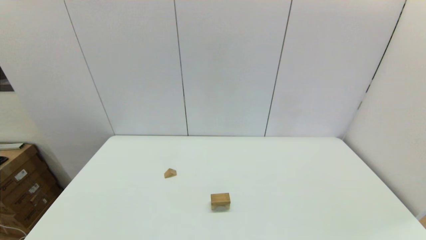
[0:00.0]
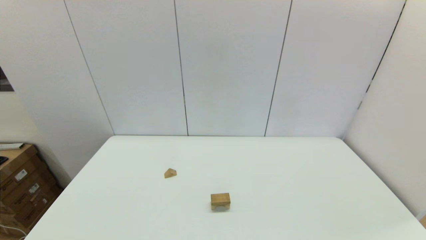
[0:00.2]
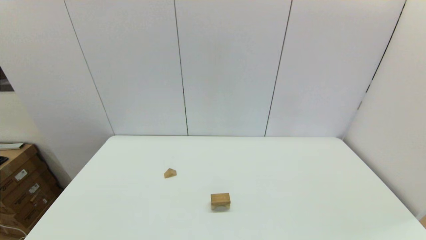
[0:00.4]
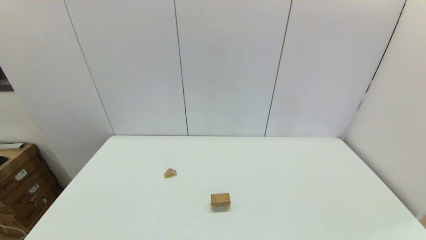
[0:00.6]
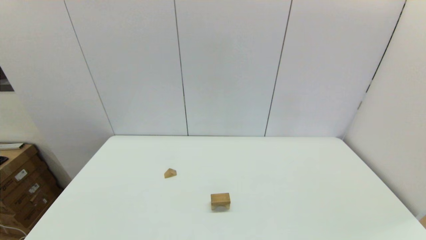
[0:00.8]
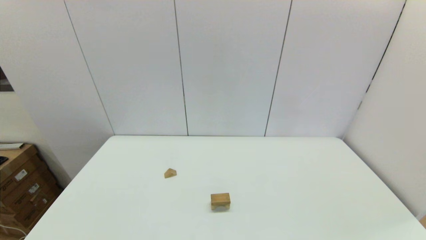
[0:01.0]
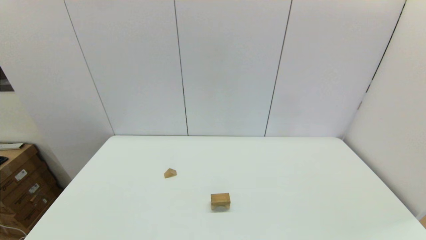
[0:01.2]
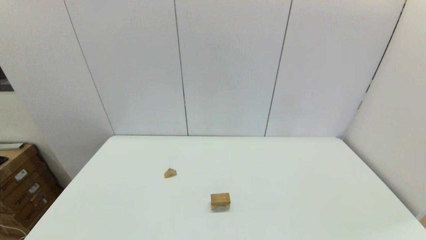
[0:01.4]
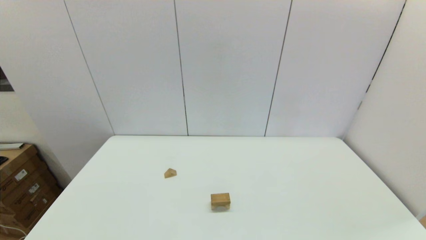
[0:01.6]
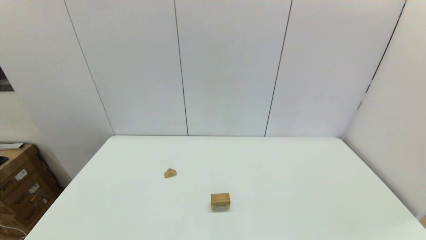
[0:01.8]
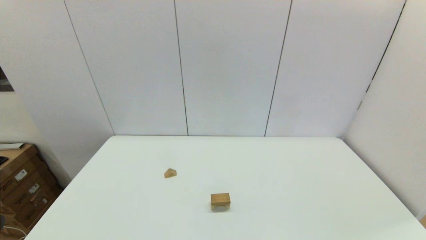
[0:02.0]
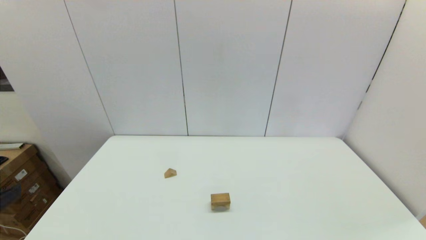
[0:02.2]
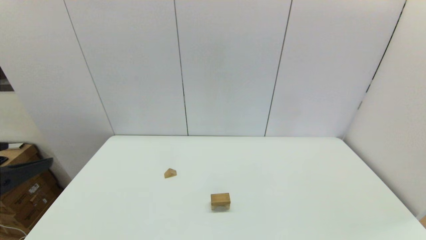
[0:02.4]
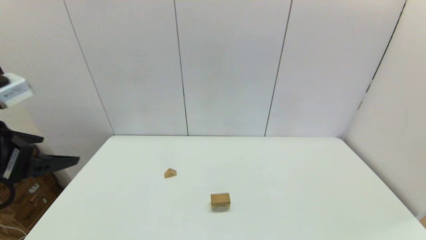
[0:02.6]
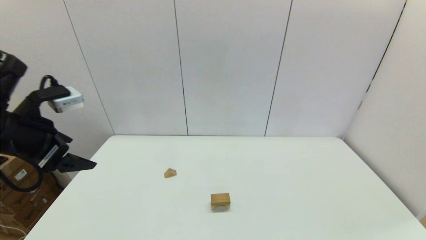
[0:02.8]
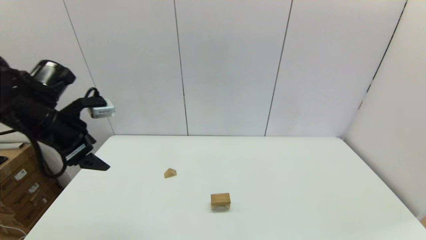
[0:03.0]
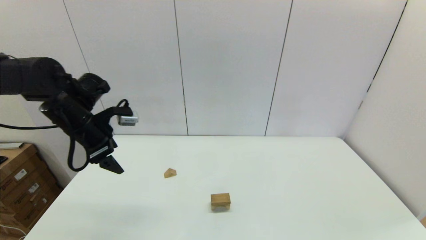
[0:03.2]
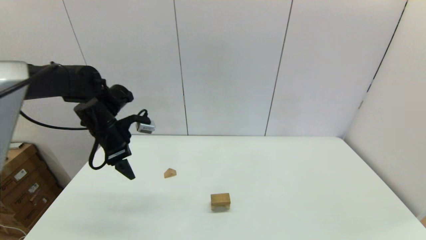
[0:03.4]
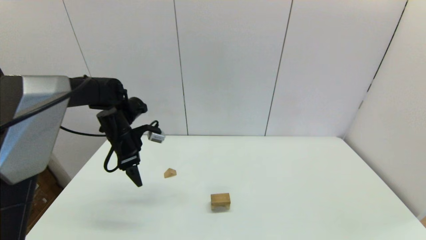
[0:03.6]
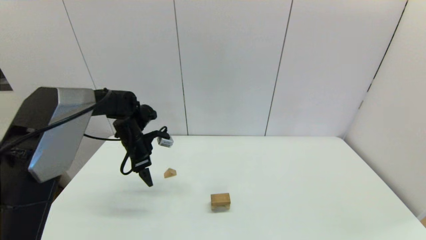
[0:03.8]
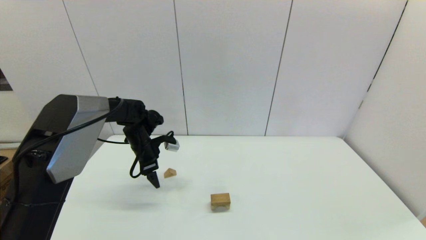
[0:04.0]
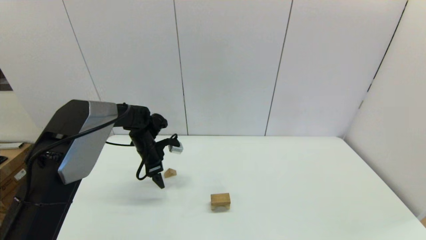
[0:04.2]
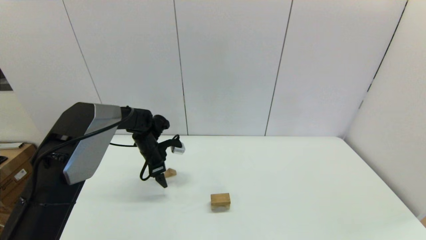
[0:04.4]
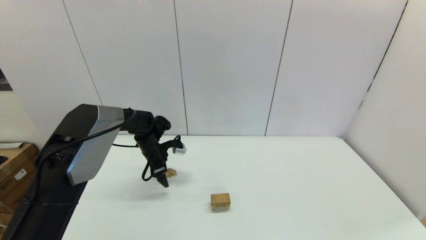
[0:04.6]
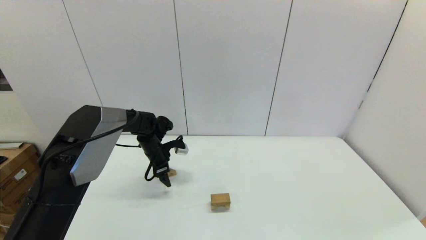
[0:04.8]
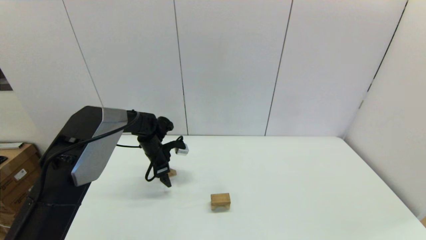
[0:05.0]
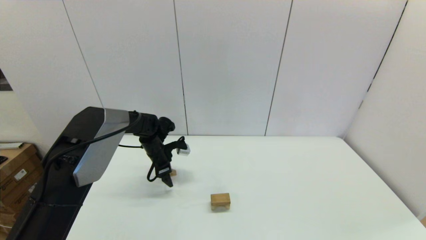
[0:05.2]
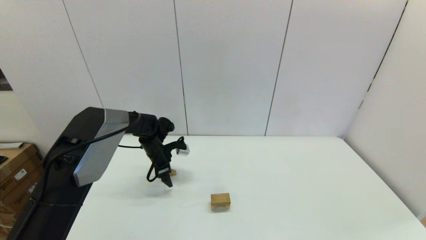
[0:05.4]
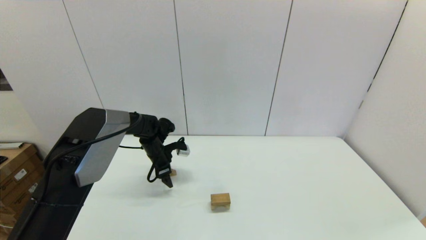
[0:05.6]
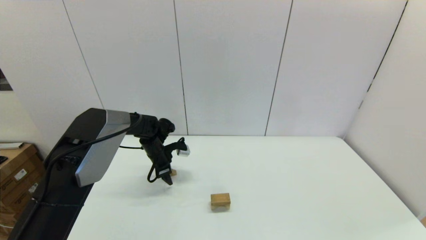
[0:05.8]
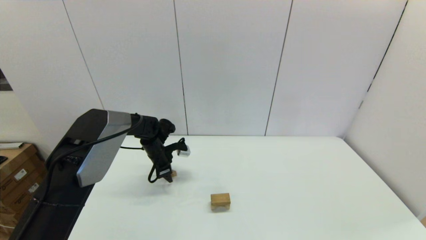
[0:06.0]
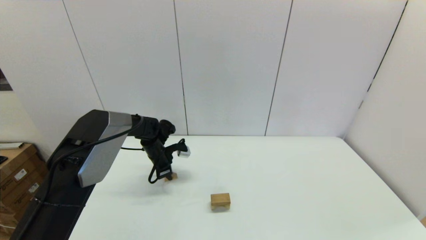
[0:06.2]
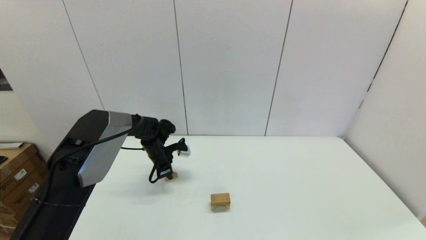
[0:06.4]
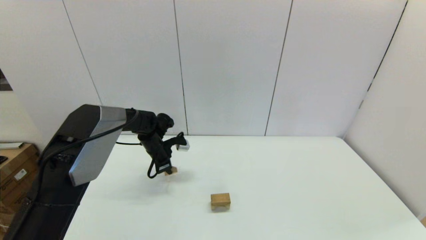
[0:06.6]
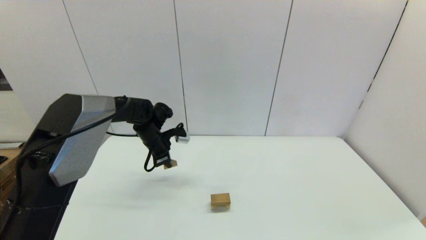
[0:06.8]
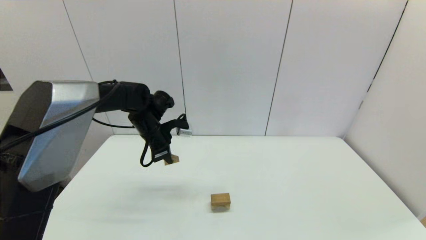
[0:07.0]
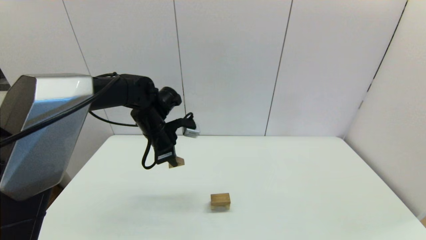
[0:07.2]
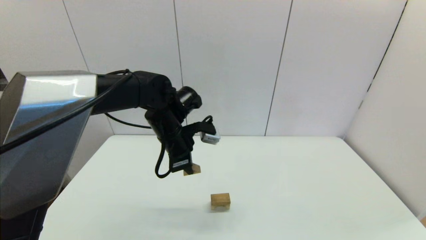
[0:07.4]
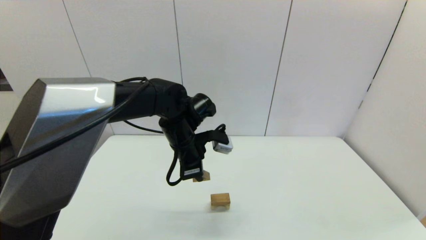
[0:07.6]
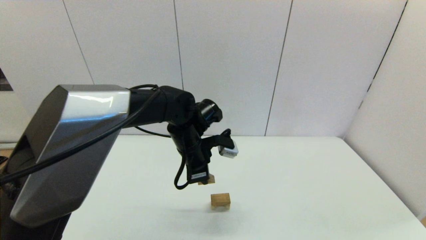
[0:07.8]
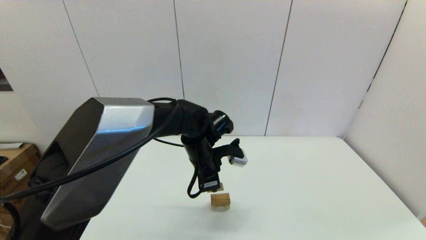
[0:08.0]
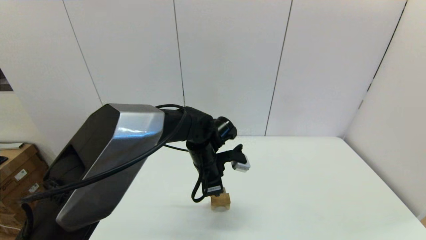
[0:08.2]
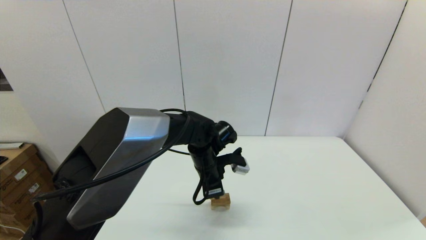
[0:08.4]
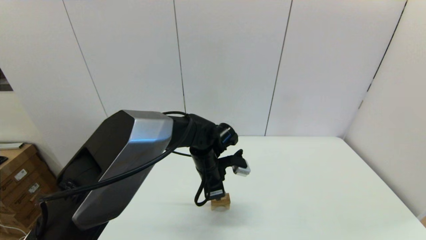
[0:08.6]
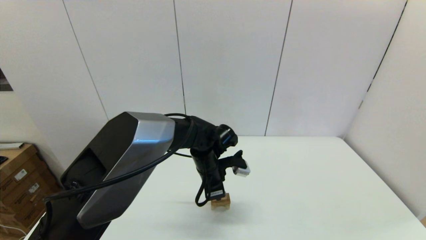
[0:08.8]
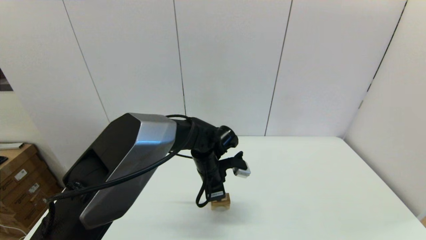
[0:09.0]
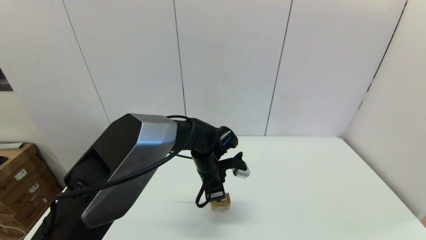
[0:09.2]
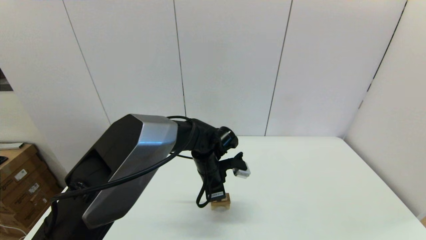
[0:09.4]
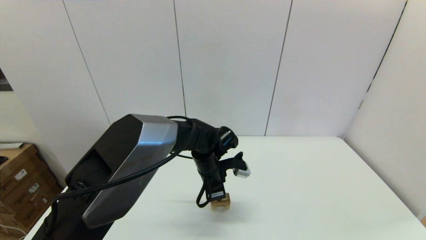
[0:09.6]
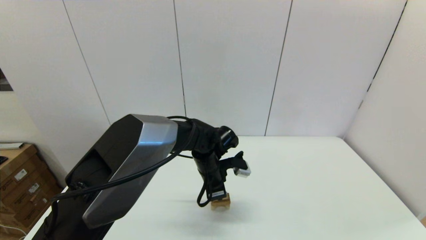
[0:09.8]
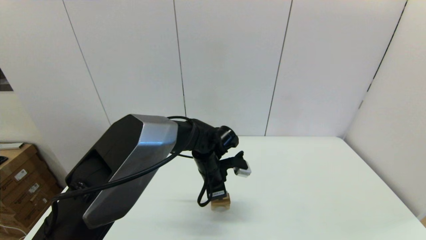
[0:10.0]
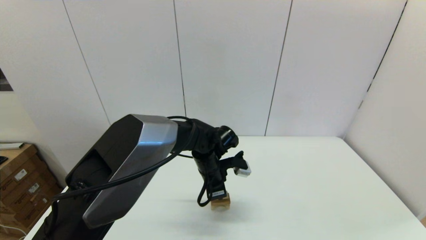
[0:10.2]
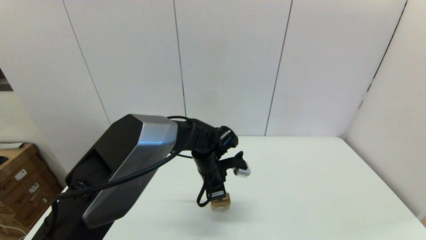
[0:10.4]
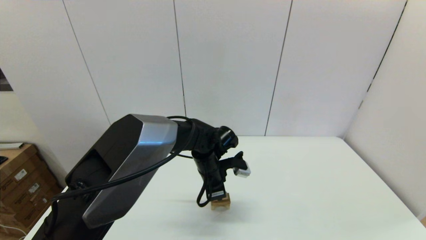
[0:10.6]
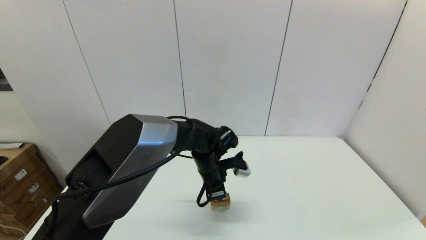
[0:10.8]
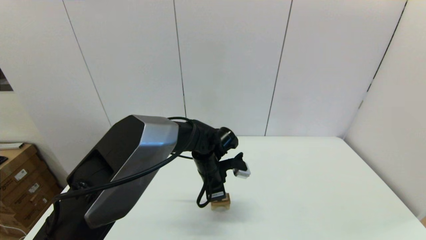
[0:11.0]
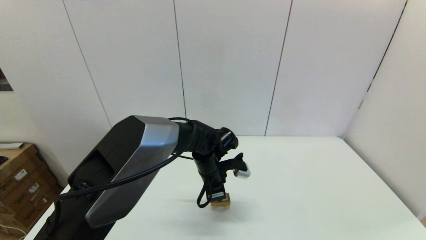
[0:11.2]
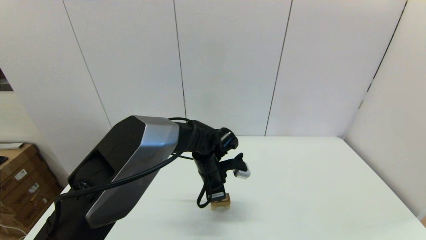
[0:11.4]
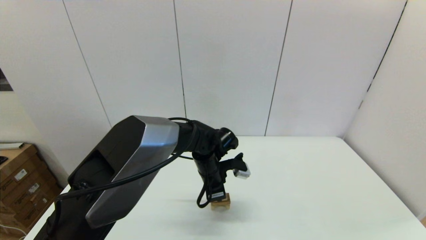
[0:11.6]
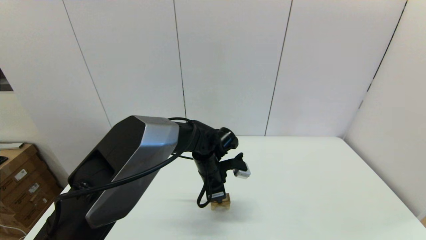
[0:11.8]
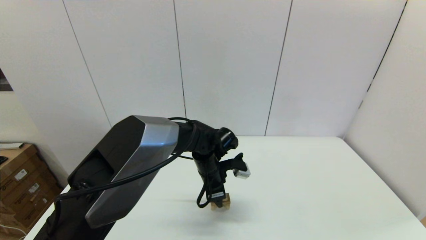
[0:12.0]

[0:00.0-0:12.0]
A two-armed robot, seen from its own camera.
Task of the whole recording: place the arched building blocks in the center of the table, set up the rectangular building blocks, and then set up the triangular building blocks.
Step, 0:00.0 to 0:06.2: Grasp the triangle-shaped block with the left gripper.
0:01.6 to 0:03.0: The left gripper shifts some 30 cm forward.
0:03.0 to 0:04.4: The left gripper travels downward, forward and to the right by about 25 cm.
0:04.4 to 0:06.0: The left gripper closes its fingers.
0:06.0 to 0:07.6: The left gripper moves upward, backward and to the right, some 20 cm, and closes up.
0:07.6 to 0:09.0: The left gripper moves downward and to the right, about 10 cm.
0:09.0 to 0:10.4: Neither gripper changes place.
0:10.4 to 0:12.0: The left gripper opens up.

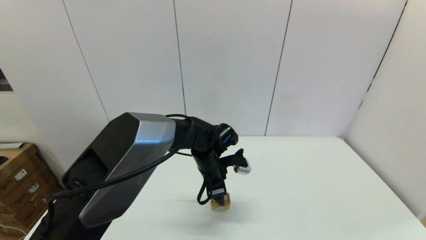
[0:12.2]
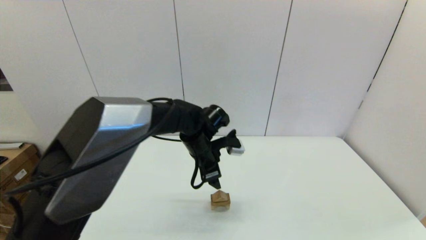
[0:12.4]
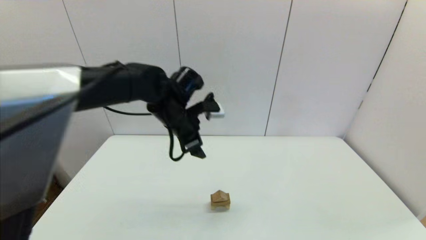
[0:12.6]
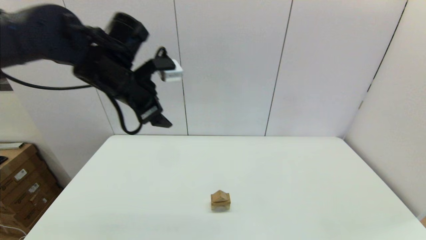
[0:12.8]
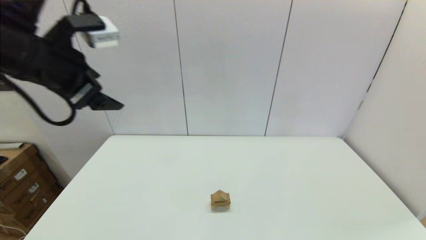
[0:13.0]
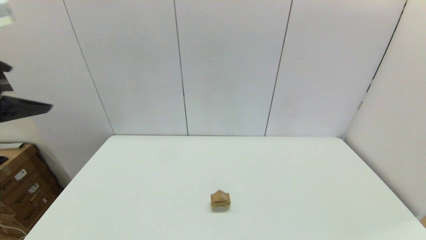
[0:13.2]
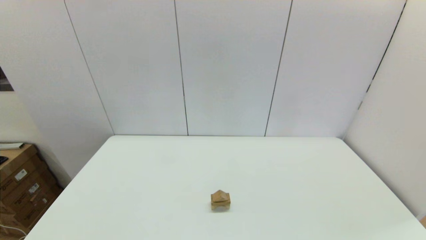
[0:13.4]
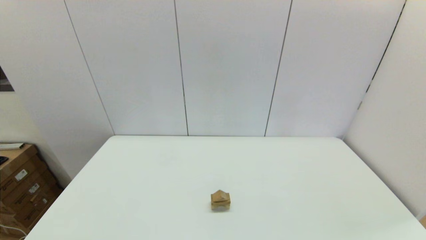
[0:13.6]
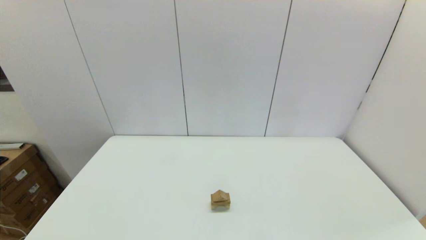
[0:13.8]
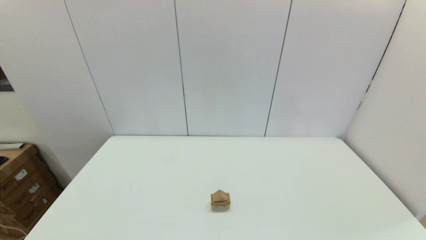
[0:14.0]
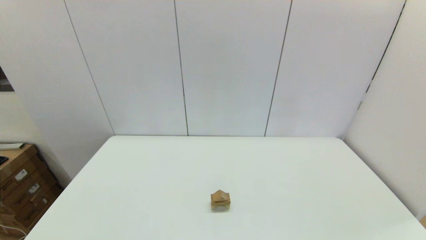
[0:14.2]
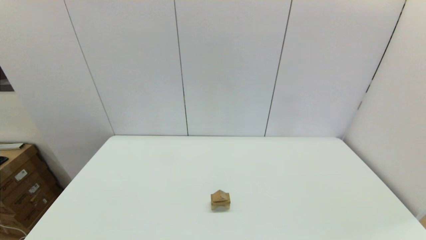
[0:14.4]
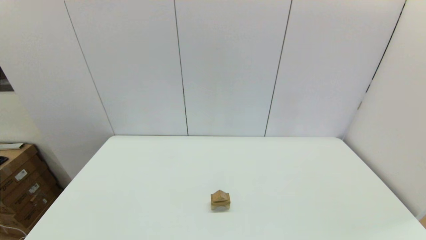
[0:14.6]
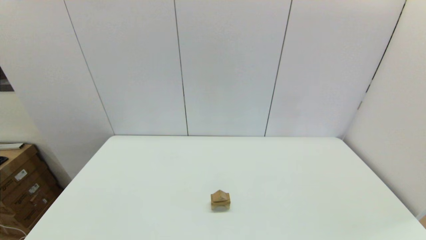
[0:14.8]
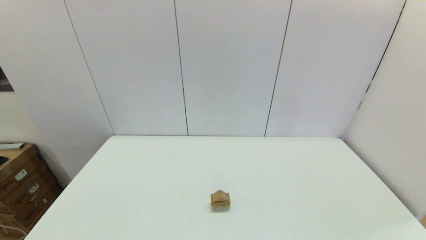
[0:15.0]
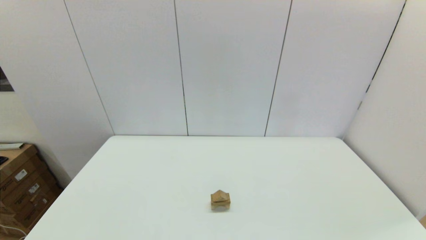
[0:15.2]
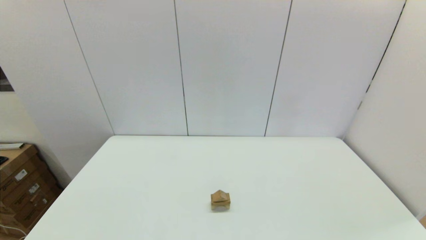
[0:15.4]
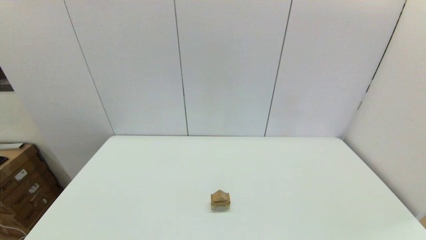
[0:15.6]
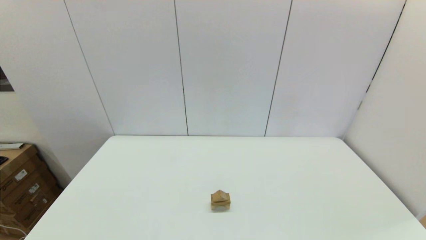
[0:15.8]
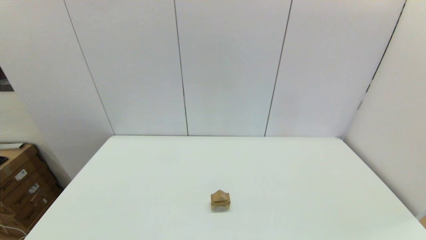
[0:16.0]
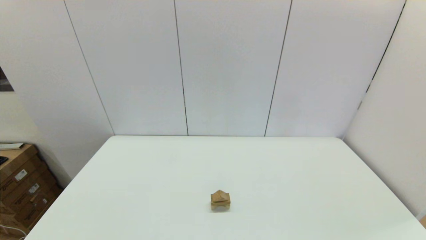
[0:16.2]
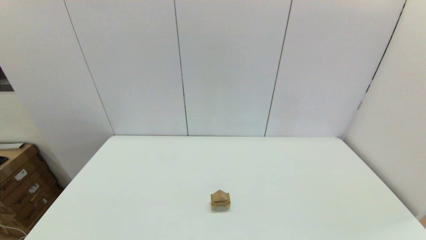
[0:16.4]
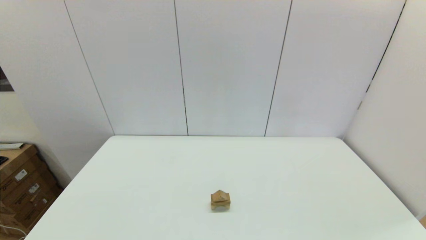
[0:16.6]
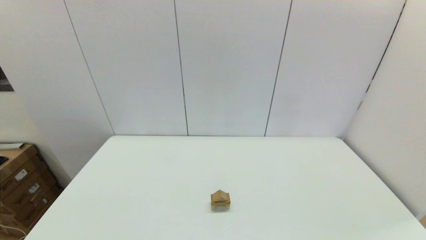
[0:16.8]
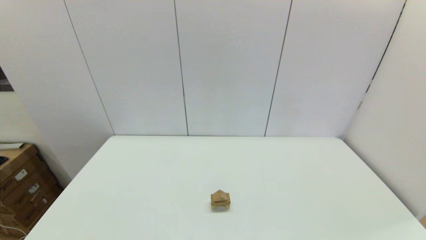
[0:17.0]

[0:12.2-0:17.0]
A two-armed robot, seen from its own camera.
Task of the whole recording: place the arched building blocks in the center of the table, set up the rectangular building blocks, and then set up the triangular building blocks.
0:12.2 to 0:13.8: The left gripper goes roughly 50 cm backward and to the left.
0:15.4 to 0:17.0: Both grippers stay about where they are.
